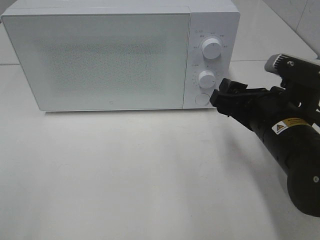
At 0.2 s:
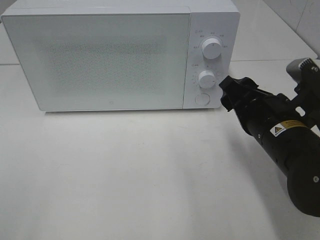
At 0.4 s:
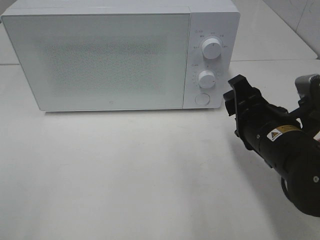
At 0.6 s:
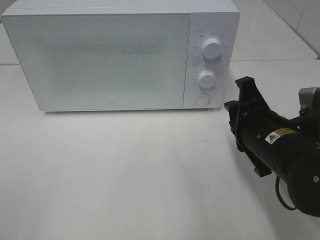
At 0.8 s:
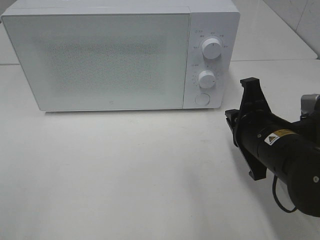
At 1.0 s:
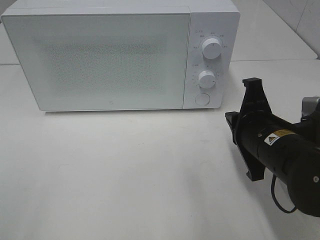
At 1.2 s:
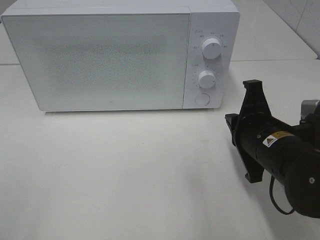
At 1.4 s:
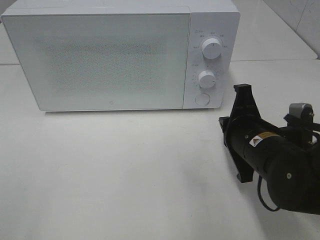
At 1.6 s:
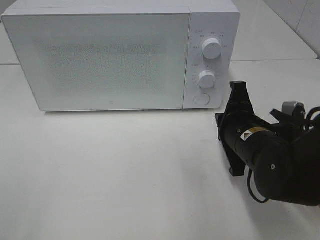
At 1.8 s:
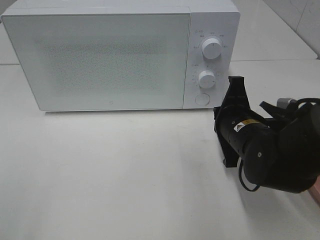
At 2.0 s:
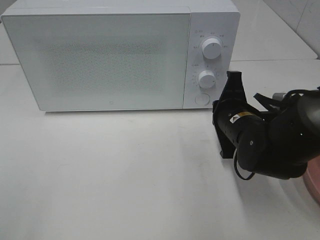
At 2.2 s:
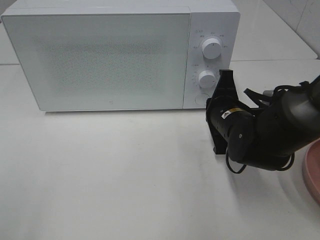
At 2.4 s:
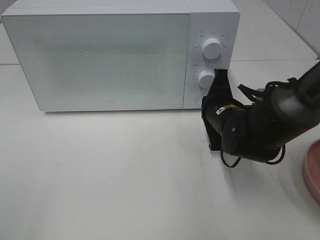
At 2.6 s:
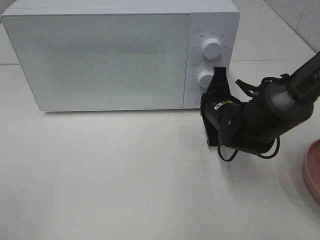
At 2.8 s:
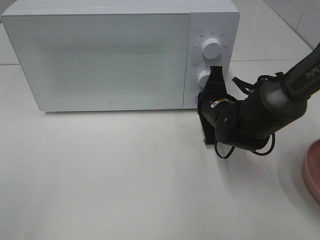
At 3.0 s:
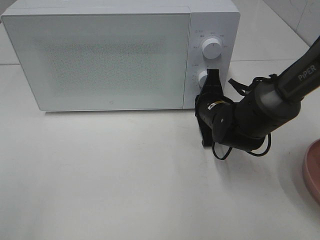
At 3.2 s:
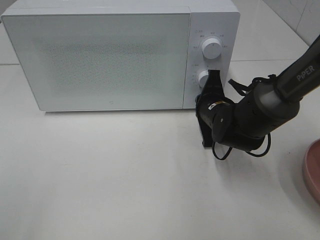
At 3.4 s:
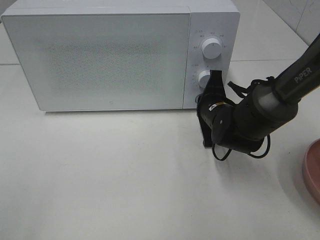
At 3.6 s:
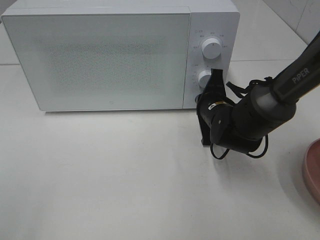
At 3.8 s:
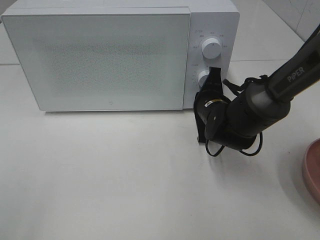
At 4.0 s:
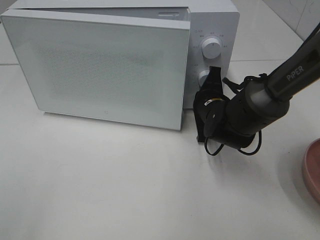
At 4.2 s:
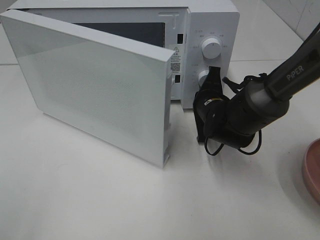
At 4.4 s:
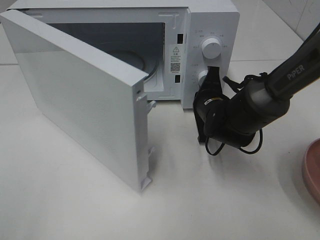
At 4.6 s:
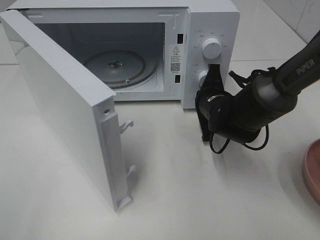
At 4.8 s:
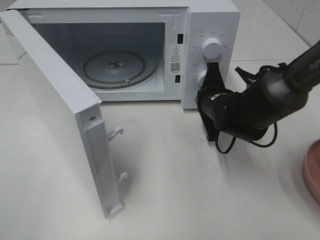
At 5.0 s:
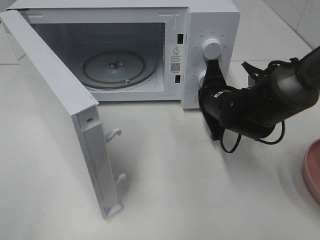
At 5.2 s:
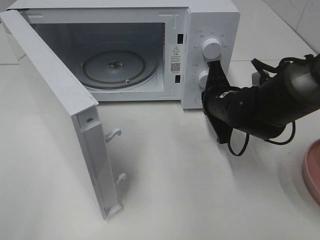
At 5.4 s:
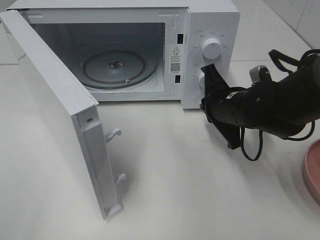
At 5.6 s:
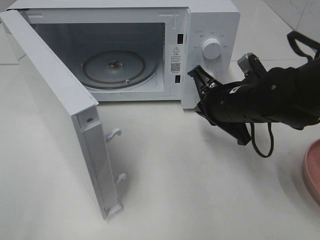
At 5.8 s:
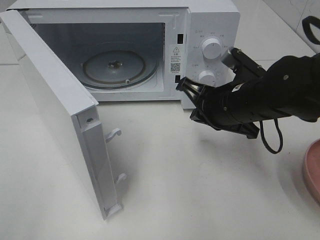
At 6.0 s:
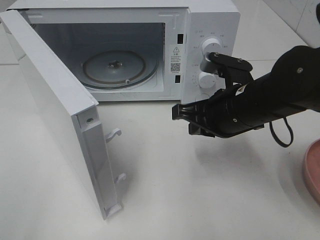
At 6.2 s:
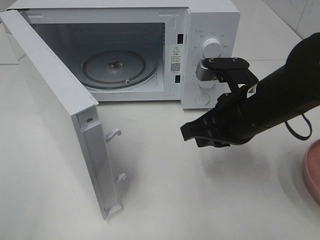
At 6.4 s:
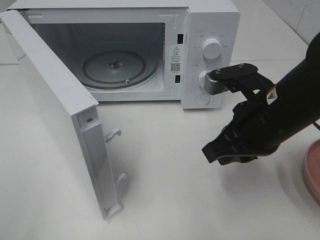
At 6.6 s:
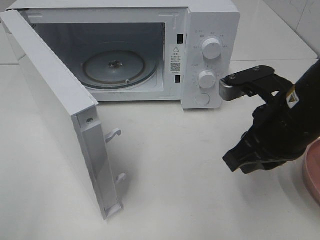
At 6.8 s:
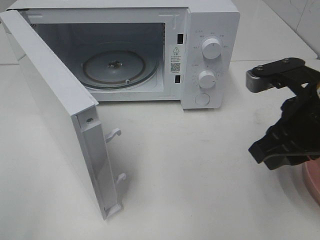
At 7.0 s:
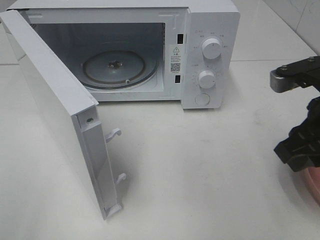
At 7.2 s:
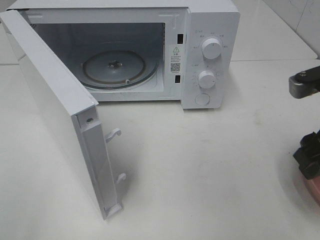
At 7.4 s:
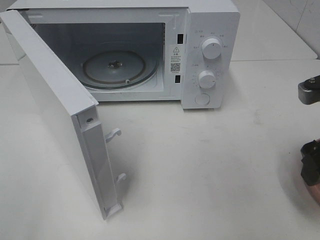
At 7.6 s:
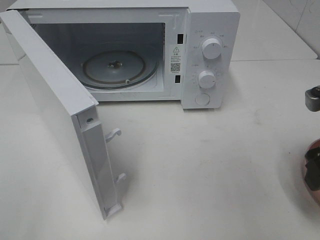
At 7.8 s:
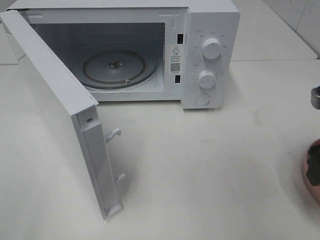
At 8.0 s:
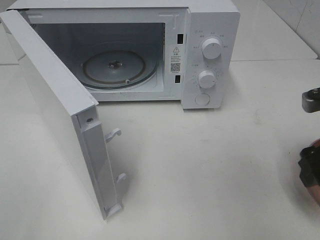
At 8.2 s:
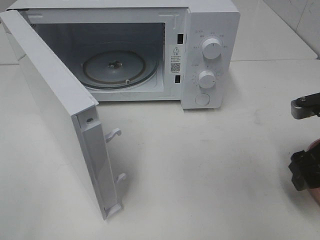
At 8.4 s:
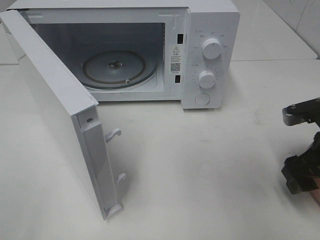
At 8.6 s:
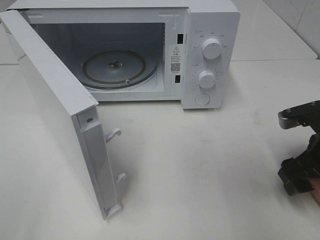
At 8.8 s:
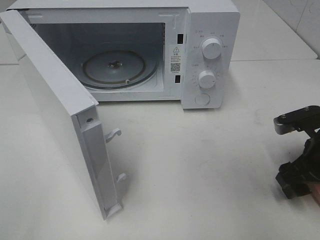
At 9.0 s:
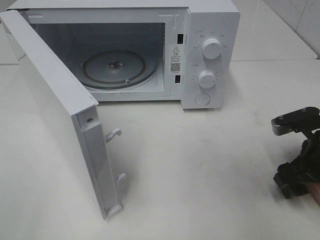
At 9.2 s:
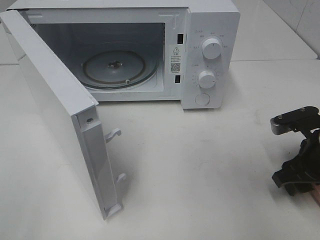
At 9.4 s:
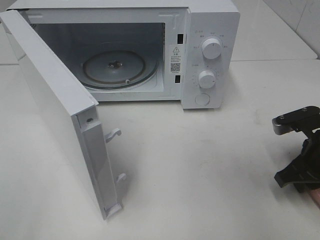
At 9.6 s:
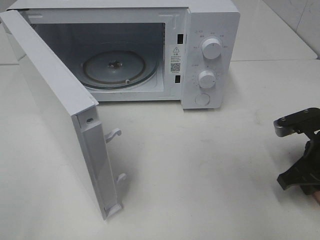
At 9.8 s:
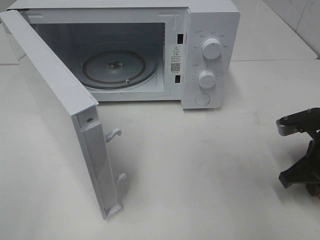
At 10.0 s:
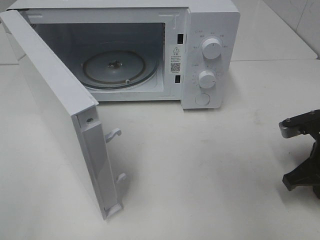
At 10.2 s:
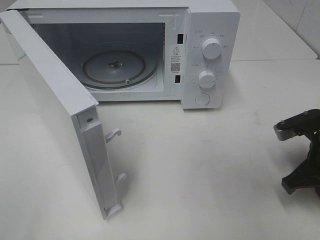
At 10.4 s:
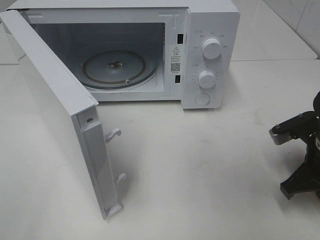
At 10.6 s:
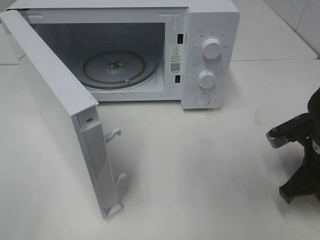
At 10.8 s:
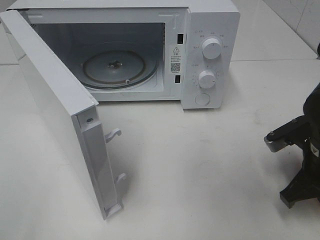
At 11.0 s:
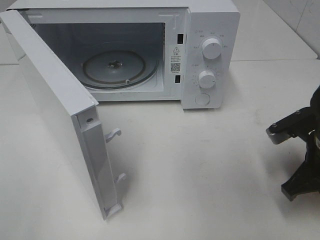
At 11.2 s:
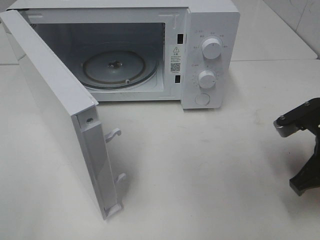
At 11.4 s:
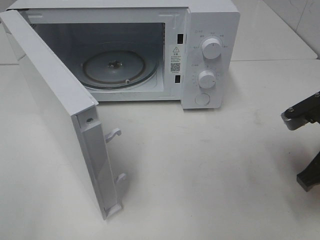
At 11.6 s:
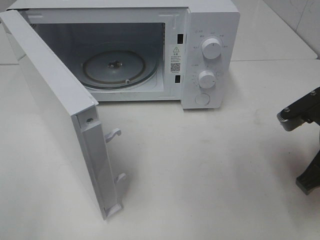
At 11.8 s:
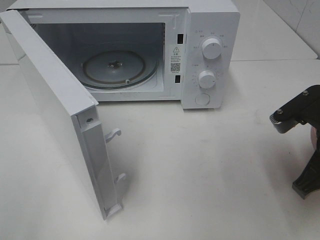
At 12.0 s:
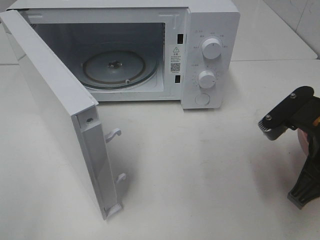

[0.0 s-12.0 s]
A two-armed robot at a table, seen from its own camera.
Task of the whole recording: Heat the burger.
Step, 0.0 to 5.4 s: Right hand: press the switch.
Step, 5.6 to 10.0 s: Right hand: grab the plate with the hamburger.
0.0 to 1.6 s: The right gripper shifts by approximately 5 cm, and closes its fingers.
1.6 to 3.0 s: The right gripper is displaced forward by about 10 cm.
4.4 to 6.0 s: The right gripper shifts some 15 cm backward and upward.
6.0 to 7.6 s: The right gripper travels to the right and backward by approximately 15 cm, and opens.
7.6 to 9.0 s: The right gripper shifts some 10 cm downward.
9.0 to 10.4 s: The right gripper closes up.
10.4 to 12.0 s: The right gripper heads upward and backward, covering roughly 10 cm.

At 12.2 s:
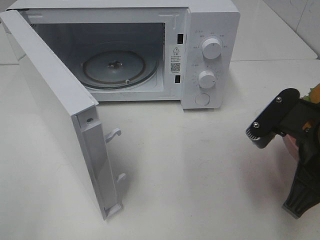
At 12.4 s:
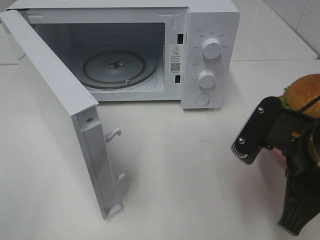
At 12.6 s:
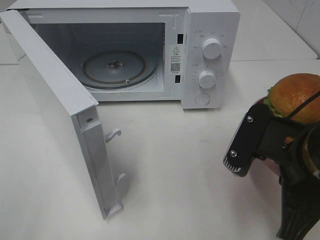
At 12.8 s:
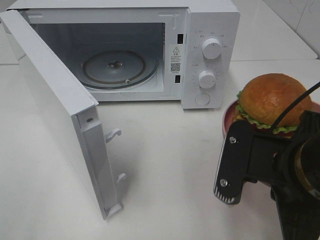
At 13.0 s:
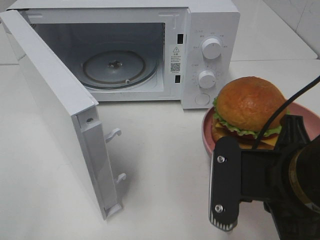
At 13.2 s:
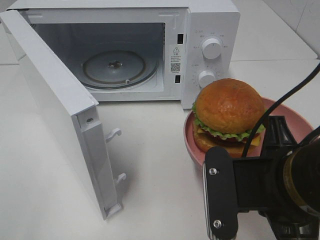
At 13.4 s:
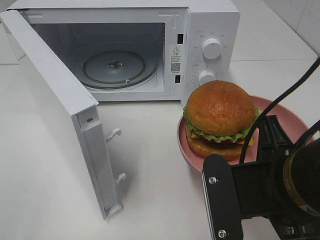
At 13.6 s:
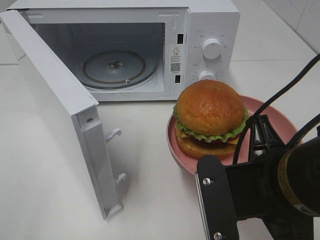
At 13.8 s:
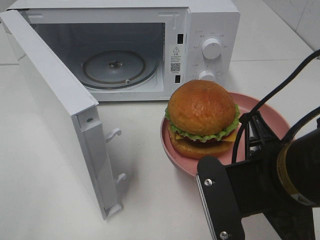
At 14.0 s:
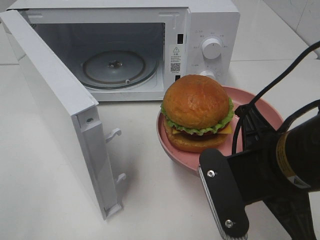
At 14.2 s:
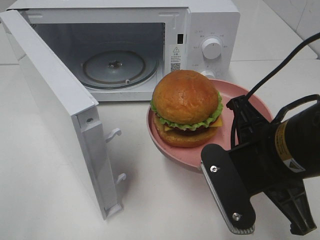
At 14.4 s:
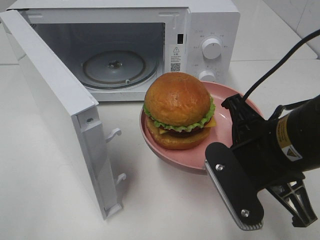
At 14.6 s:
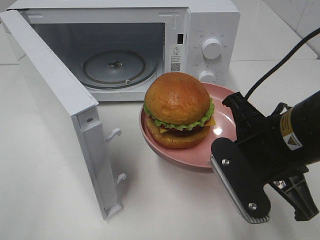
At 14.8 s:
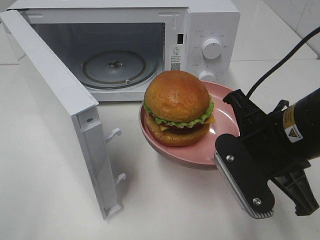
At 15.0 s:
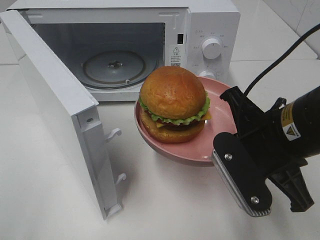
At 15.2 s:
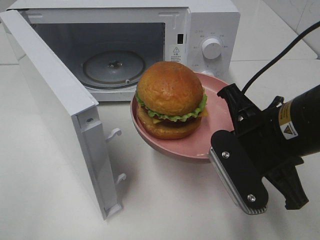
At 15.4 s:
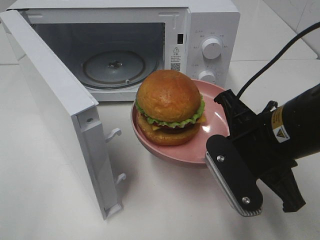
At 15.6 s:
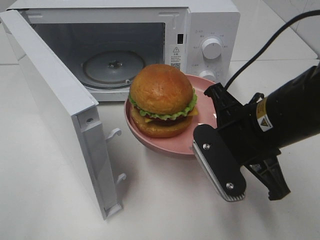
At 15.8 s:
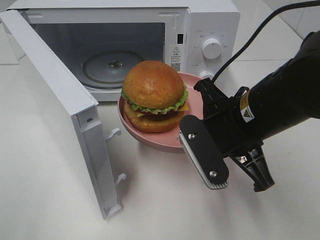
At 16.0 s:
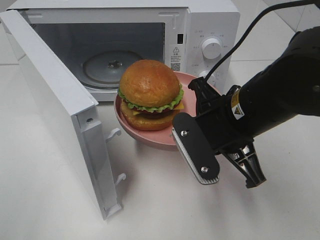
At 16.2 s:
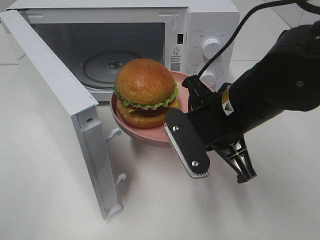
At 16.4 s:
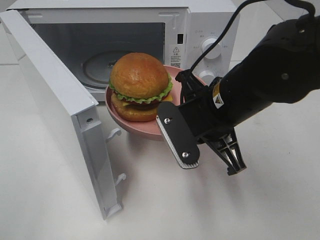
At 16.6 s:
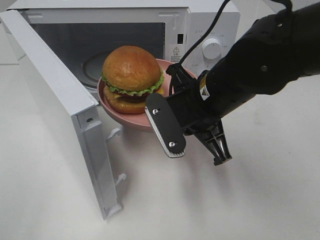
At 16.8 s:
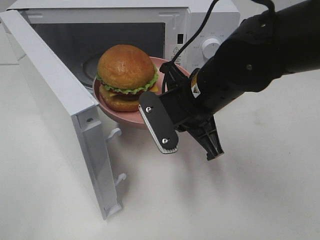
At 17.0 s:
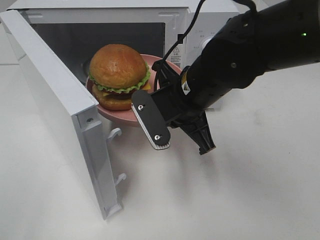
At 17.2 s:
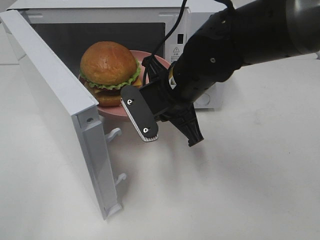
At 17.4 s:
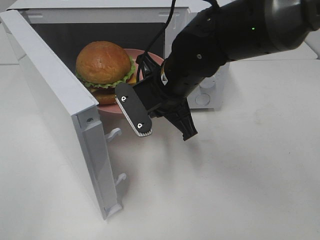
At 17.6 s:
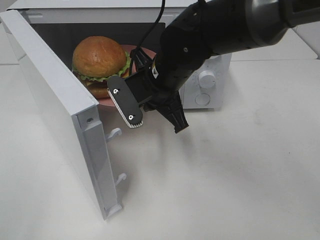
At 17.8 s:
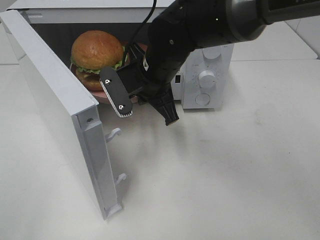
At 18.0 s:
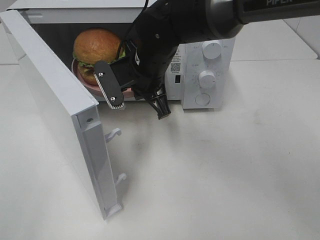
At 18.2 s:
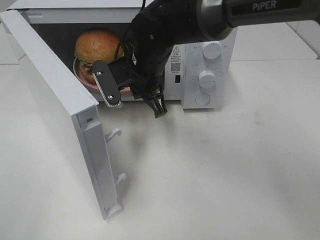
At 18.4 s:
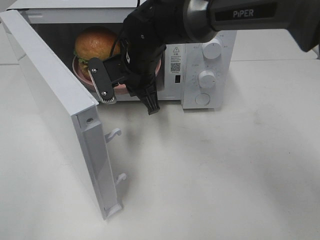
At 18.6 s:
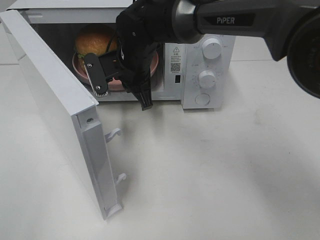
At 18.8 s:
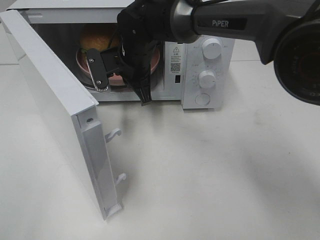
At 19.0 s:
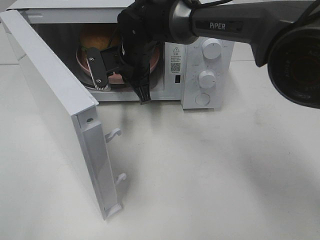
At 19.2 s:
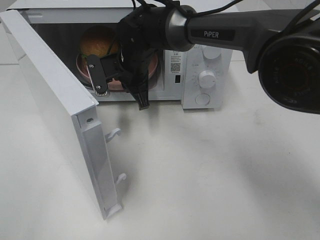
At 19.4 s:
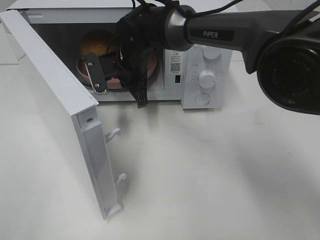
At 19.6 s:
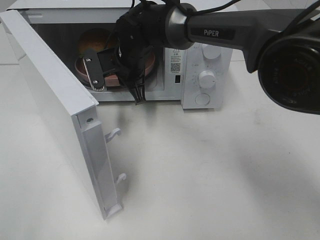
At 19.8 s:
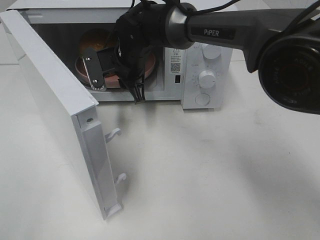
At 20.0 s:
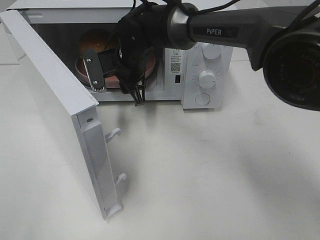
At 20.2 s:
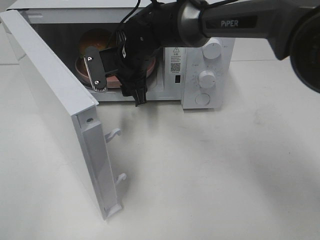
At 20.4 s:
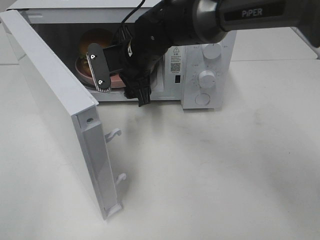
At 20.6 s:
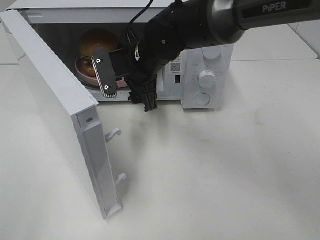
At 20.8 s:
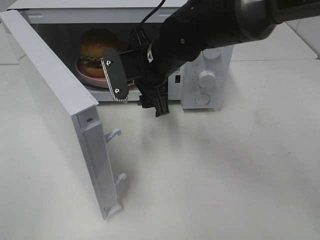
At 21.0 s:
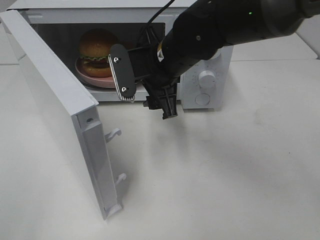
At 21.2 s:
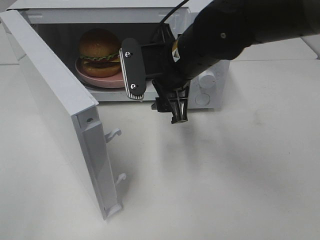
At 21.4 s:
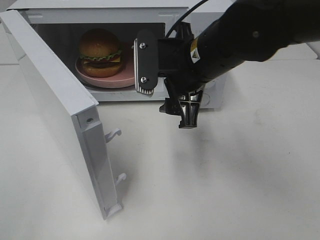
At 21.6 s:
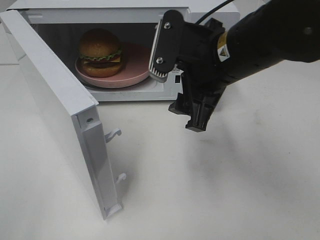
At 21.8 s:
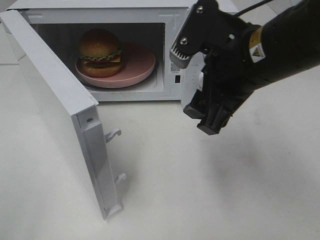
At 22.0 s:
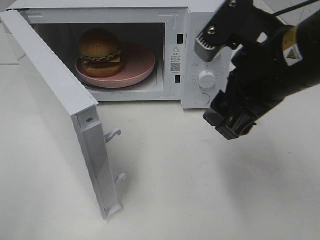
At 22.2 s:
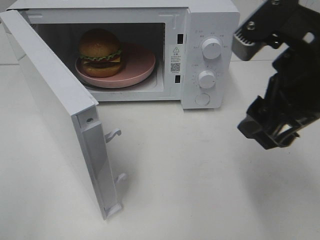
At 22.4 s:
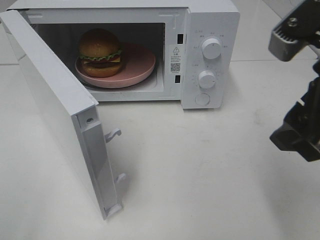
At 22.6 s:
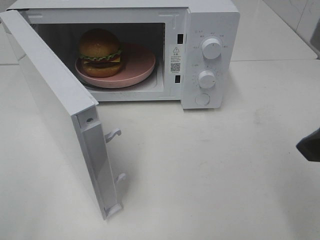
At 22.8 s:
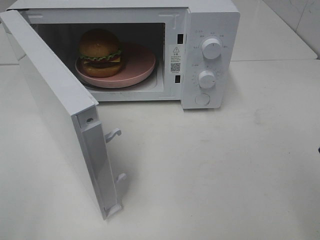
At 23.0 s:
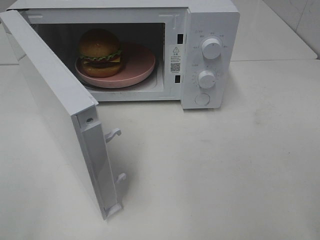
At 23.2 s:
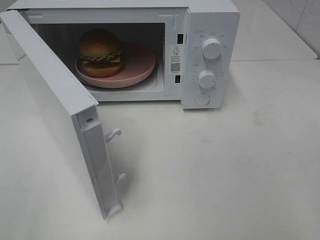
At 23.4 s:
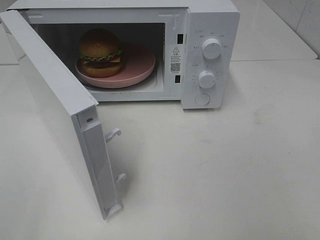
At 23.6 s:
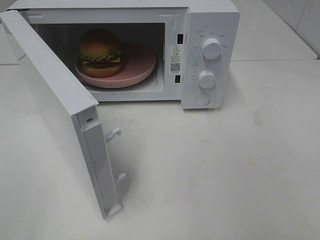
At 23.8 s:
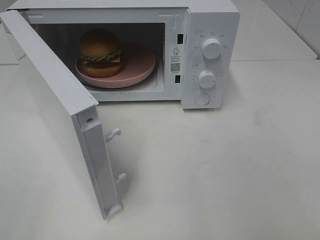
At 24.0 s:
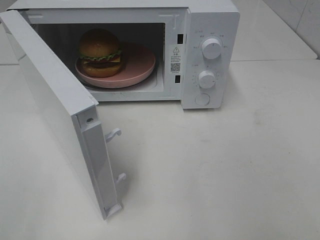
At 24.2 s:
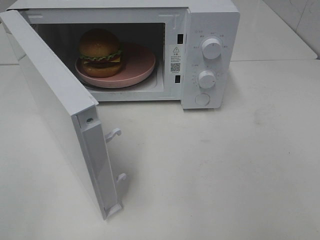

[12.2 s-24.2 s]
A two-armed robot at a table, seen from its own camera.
Task of the whole recording: Heat the burger.
Step, 12.2 to 20.0 s: Right hand: place the plate in the microwave.
12.2 to 13.8 s: The right gripper heads to the left, covering roughly 5 cm.
13.8 to 15.2 s: The right gripper travels forward by about 5 cm.
15.2 to 16.6 s: The right gripper moves forward and to the left, about 10 cm.
16.6 to 18.2 s: The right gripper moves forward and to the left, approximately 15 cm.
18.2 to 19.8 s: The right gripper goes some 5 cm forward, and opens its fingers.
19.8 to 21.2 s: The right gripper heads backward, to the right and upward, covering roughly 15 cm, and opens up.
21.2 to 22.6 s: The right gripper moves backward, to the right and upward, roughly 25 cm.
22.6 to 24.2 s: The right gripper shifts about 15 cm backward and to the right.
